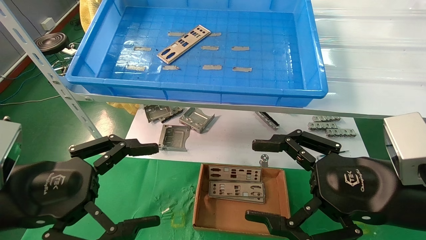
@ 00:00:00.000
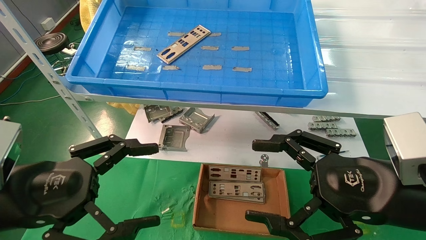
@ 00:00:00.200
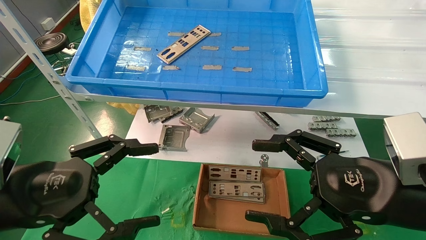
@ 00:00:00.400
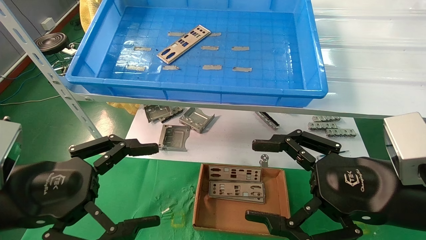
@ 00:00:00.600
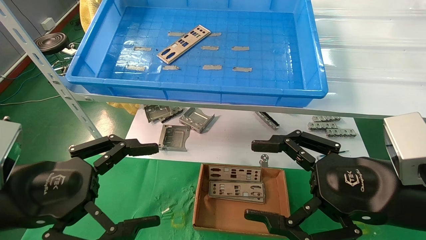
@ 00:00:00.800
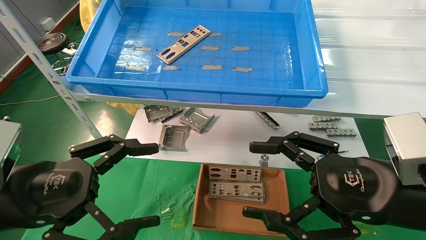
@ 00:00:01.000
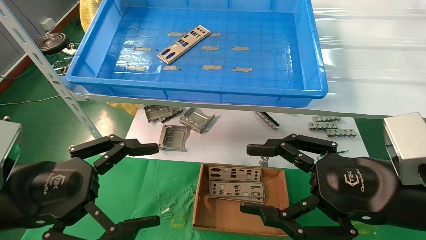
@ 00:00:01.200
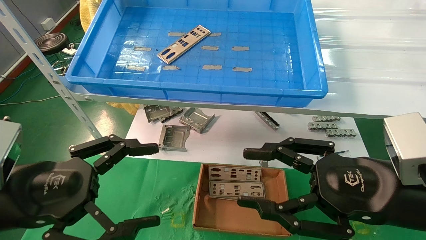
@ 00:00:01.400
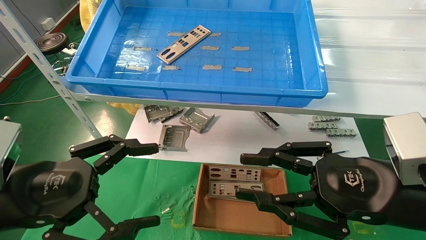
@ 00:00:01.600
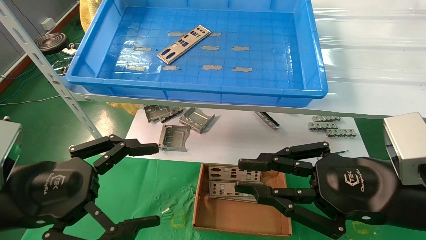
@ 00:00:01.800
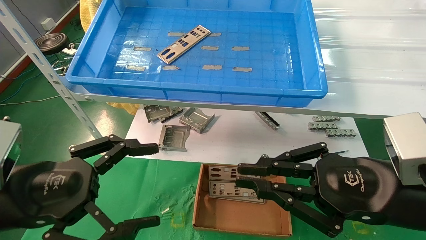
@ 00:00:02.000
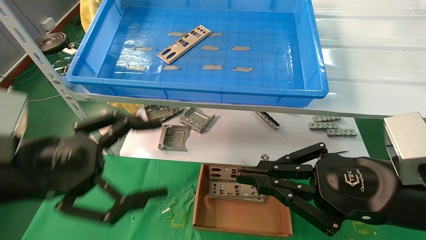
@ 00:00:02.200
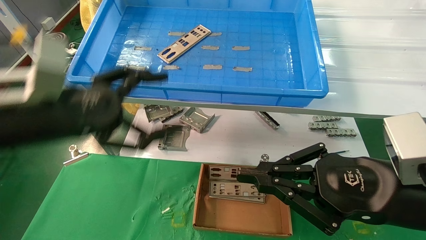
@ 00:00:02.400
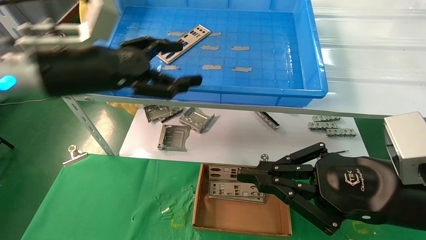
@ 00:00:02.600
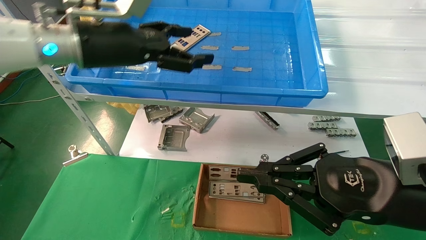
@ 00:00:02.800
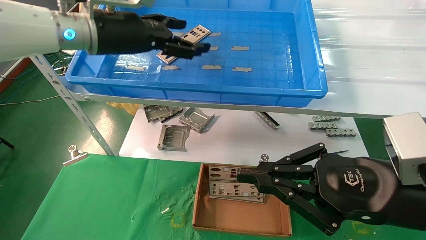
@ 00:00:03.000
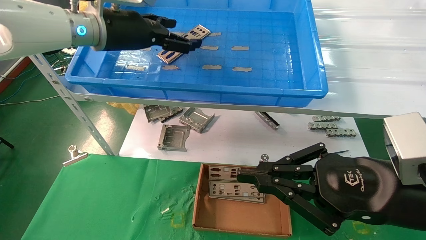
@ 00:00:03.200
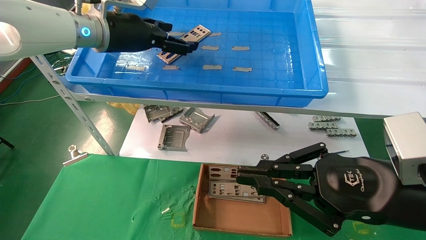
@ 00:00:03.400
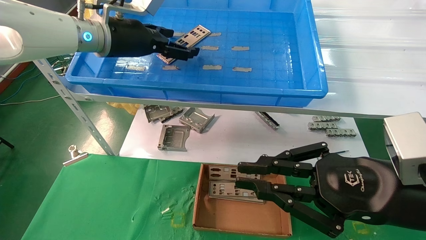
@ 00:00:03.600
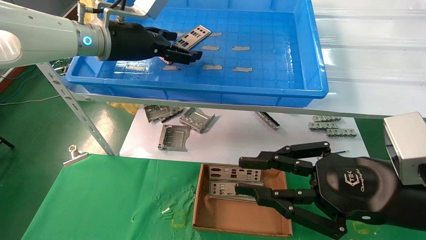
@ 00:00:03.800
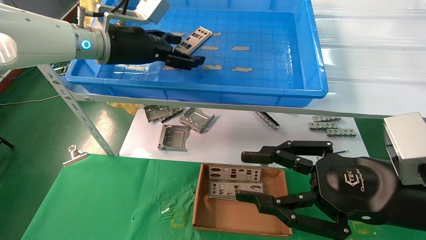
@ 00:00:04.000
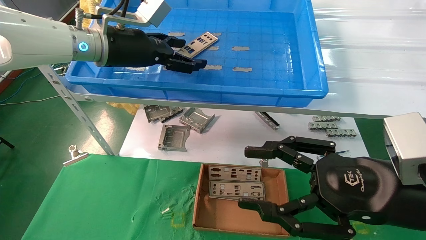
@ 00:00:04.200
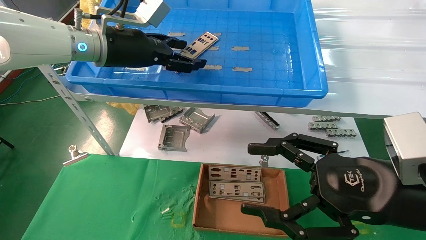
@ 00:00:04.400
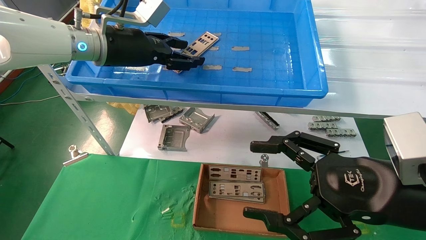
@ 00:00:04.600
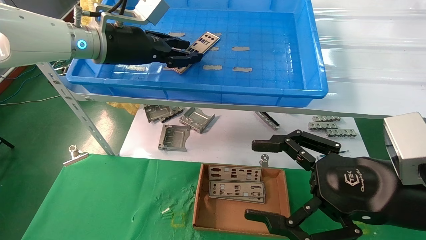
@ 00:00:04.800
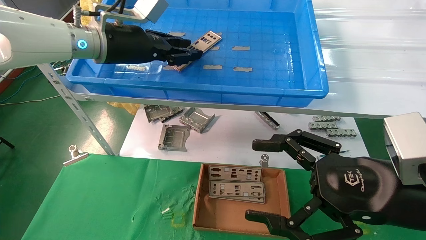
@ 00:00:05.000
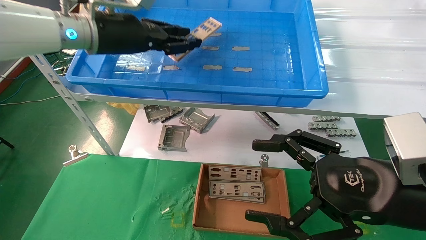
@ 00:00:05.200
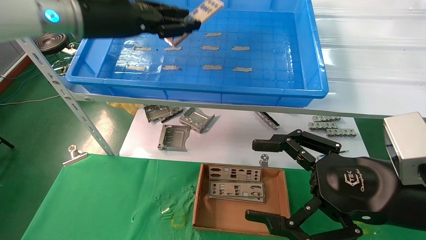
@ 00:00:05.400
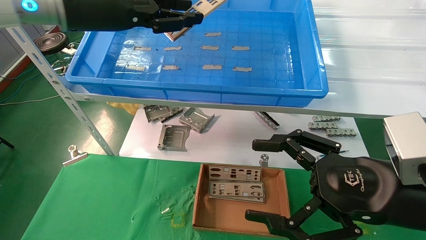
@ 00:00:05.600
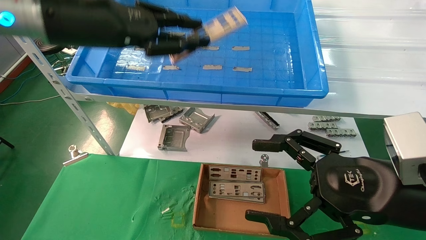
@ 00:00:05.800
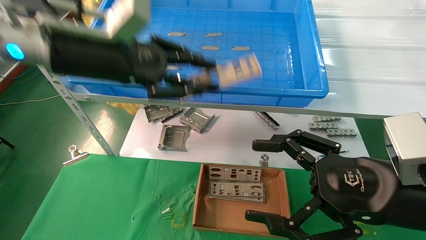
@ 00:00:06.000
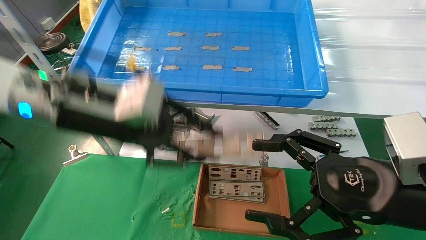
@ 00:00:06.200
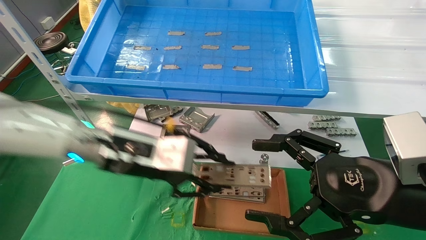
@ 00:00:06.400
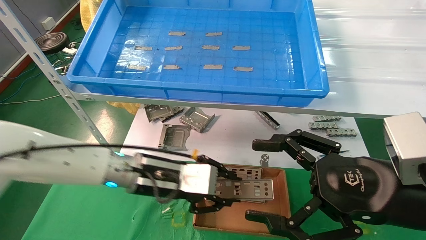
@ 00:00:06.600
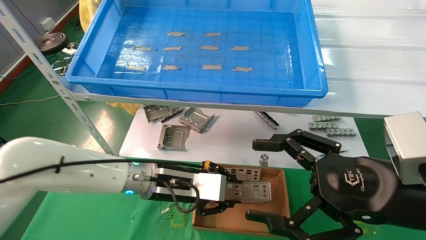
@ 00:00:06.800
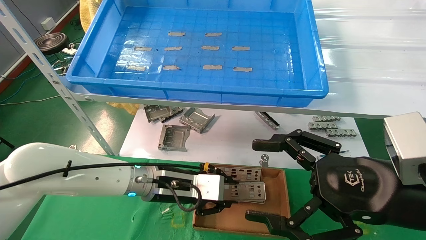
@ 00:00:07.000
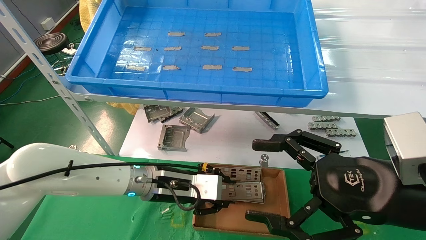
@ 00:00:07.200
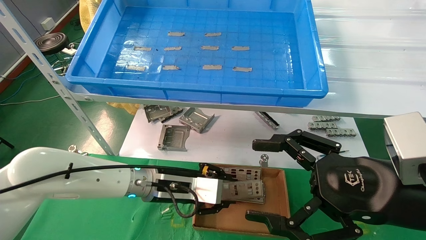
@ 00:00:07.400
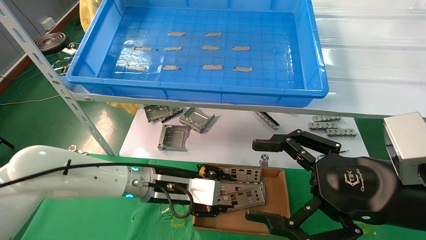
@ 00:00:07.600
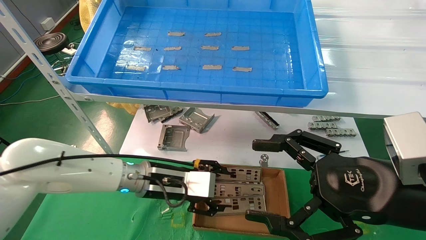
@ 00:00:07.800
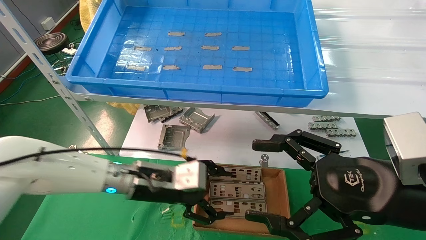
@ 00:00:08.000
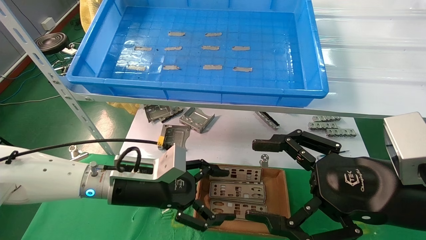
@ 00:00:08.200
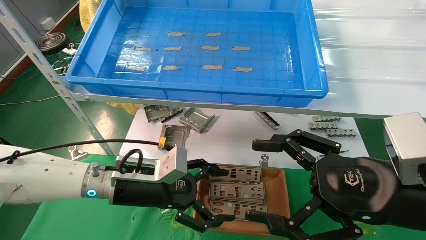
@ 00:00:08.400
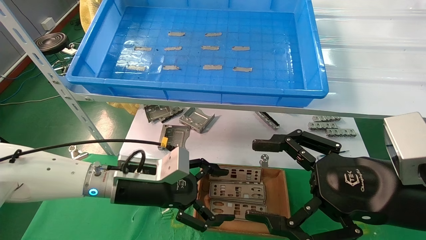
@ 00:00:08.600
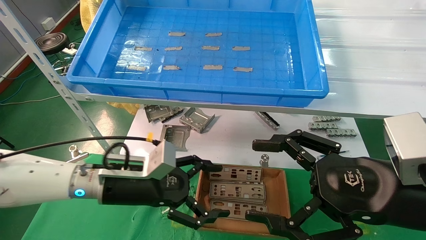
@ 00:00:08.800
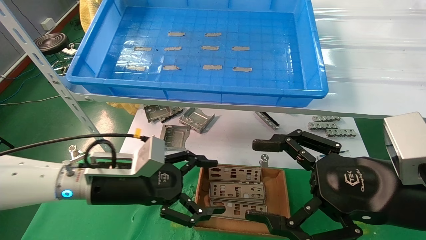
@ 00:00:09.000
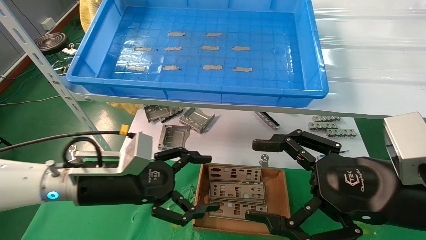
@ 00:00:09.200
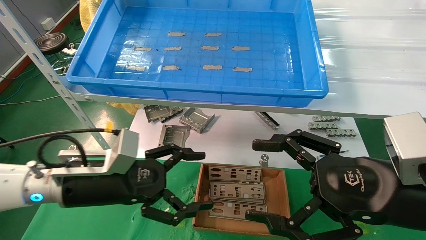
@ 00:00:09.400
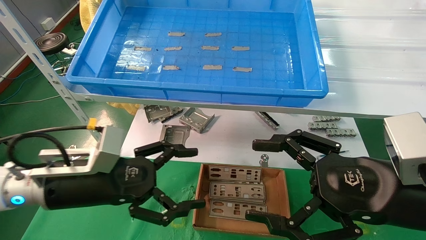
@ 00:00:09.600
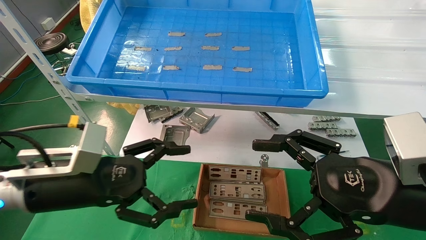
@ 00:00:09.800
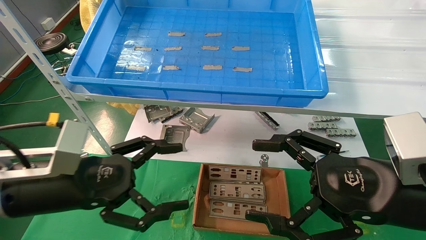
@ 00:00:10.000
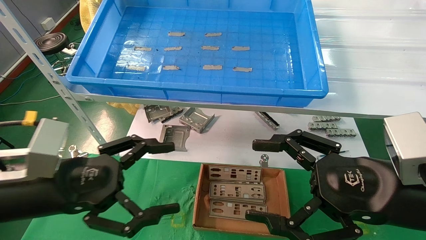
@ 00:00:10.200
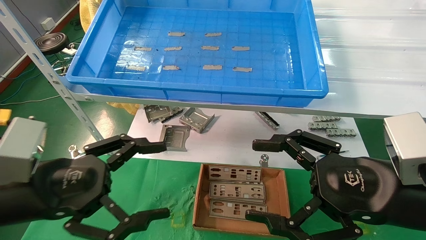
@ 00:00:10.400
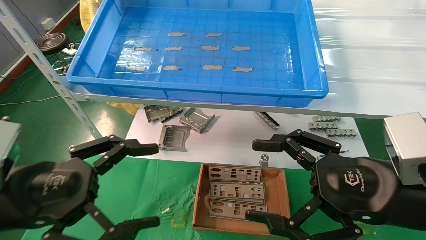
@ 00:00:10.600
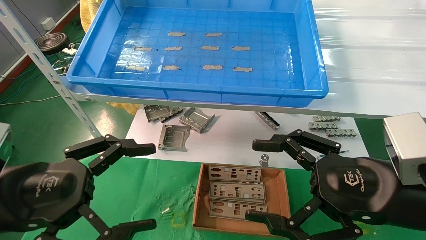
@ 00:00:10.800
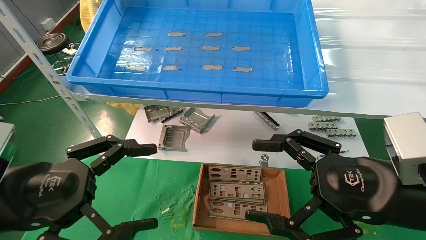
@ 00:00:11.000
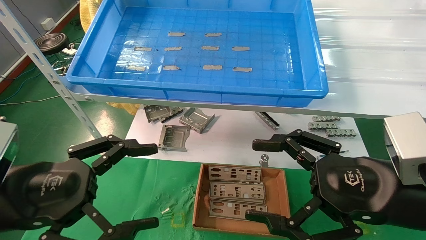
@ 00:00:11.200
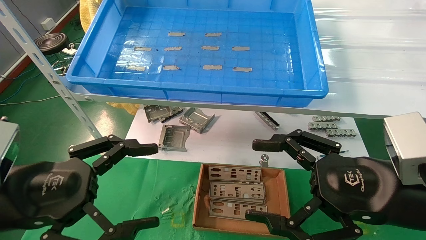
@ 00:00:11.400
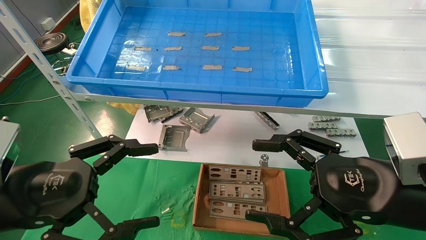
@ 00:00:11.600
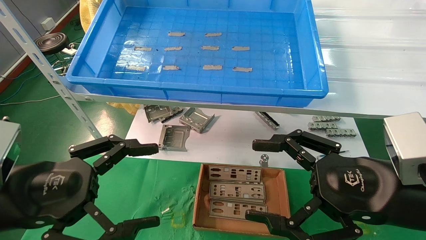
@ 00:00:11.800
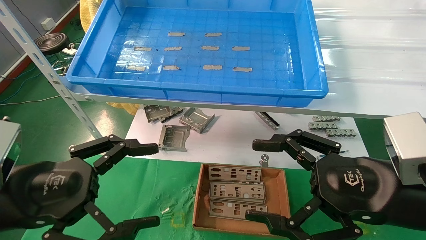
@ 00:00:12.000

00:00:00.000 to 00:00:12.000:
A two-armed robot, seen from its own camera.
Task of the whole recording: pick up the parts on the tray and put them in the cardboard box.
Step, 00:00:02.600 to 00:00:05.000: Pick up the IO bracket from the container box.
Step, 00:00:05.200 to 00:00:07.600: Place the IO bracket into the ingredient slot.
00:00:00.000 to 00:00:01.600: The right gripper closes up.
00:00:01.600 to 00:00:03.000: The right gripper closes its fingers. The left gripper heads forward, upward and to the right, covering some 30 cm.
00:00:03.000 to 00:00:04.400: The right gripper opens its fingers.
00:00:04.400 to 00:00:06.000: The left gripper is displaced backward by approximately 10 cm, and closes.
00:00:06.000 to 00:00:07.600: The left gripper moves downward, roughly 25 cm.
00:00:07.600 to 00:00:09.000: The left gripper goes roughly 10 cm to the left and backward, and opens its fingers.
00:00:09.000 to 00:00:10.400: The left gripper moves backward, to the left and upward, roughly 15 cm.
00:00:10.400 to 00:00:12.000: The grippers move only a little.

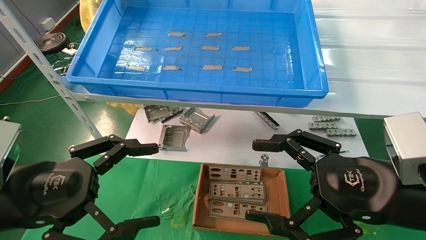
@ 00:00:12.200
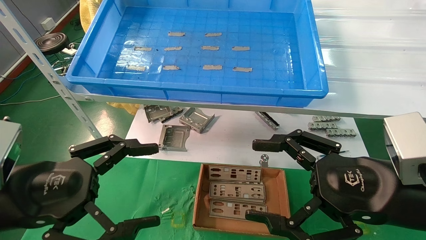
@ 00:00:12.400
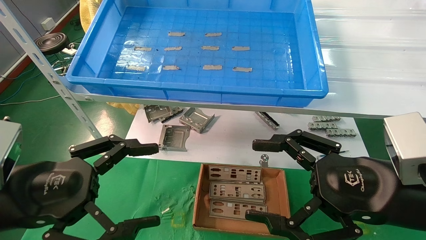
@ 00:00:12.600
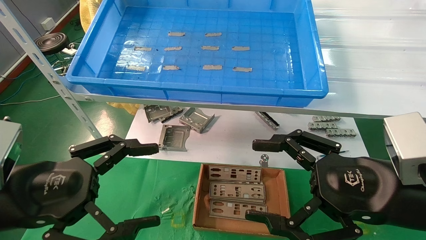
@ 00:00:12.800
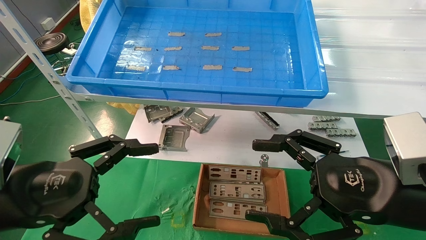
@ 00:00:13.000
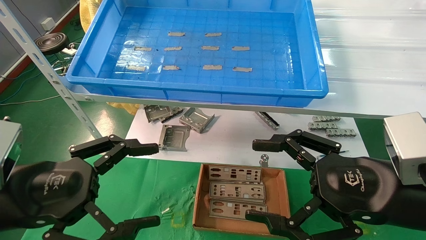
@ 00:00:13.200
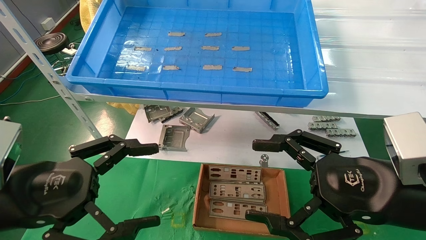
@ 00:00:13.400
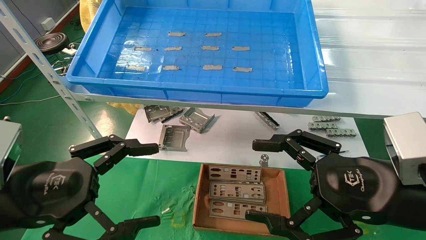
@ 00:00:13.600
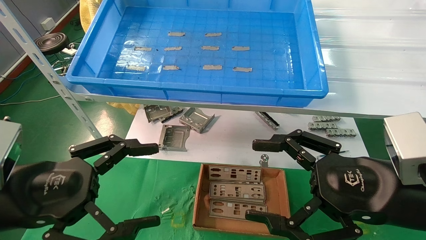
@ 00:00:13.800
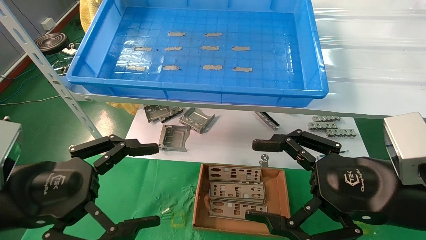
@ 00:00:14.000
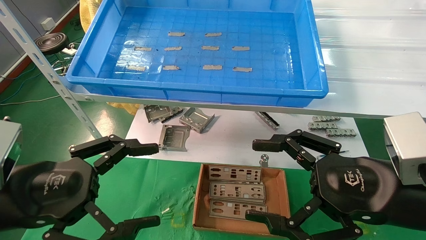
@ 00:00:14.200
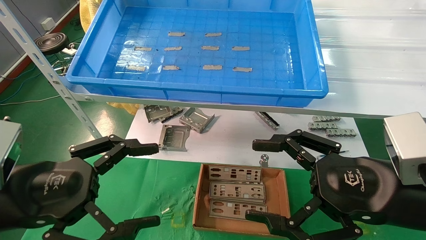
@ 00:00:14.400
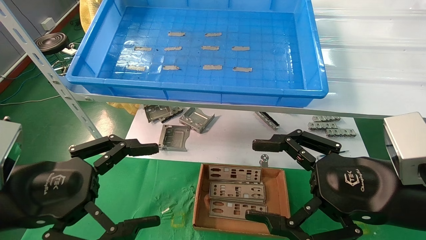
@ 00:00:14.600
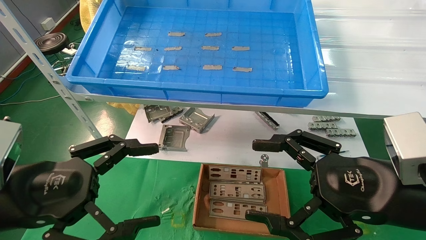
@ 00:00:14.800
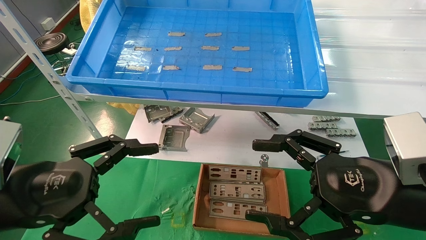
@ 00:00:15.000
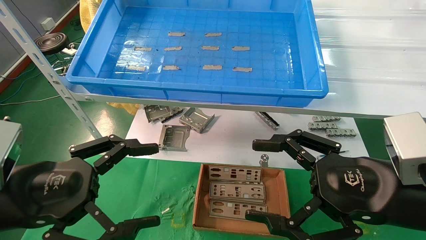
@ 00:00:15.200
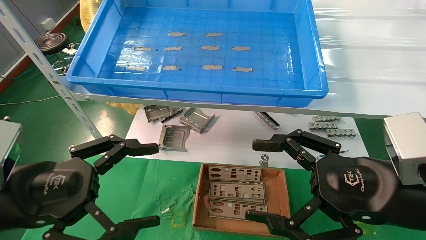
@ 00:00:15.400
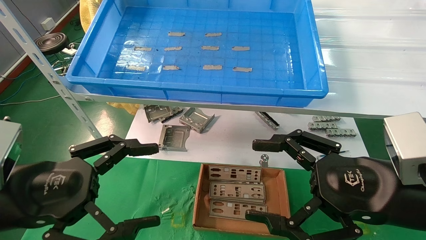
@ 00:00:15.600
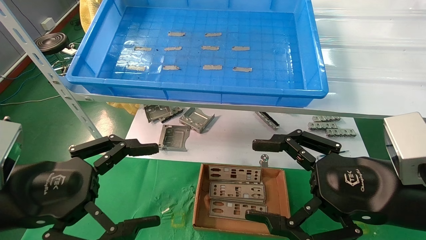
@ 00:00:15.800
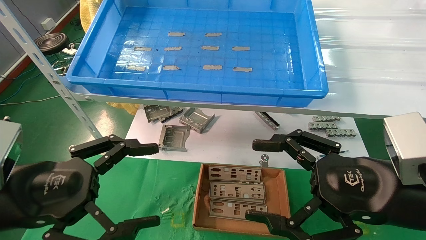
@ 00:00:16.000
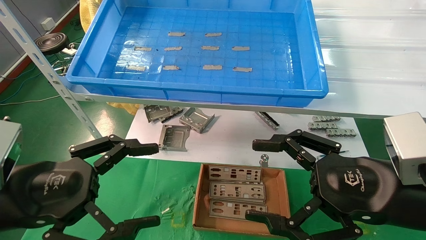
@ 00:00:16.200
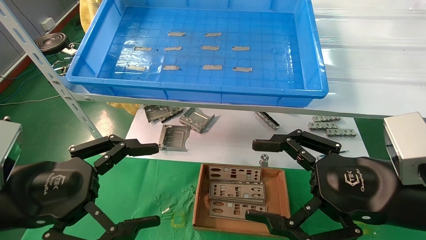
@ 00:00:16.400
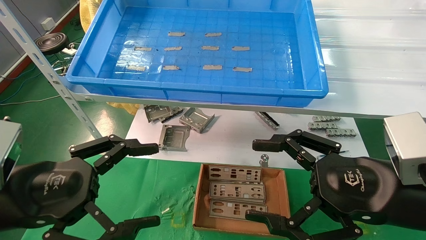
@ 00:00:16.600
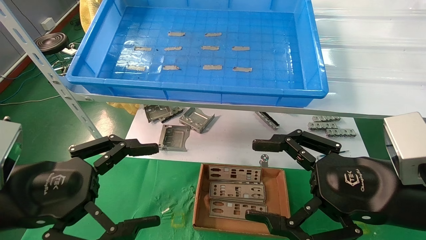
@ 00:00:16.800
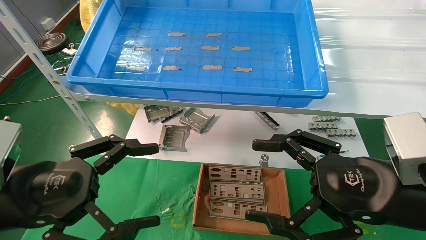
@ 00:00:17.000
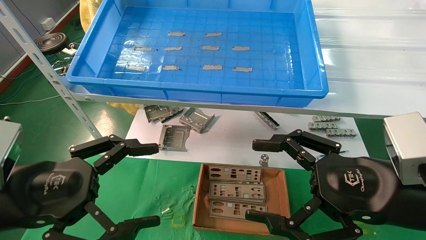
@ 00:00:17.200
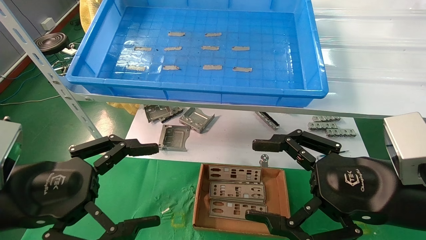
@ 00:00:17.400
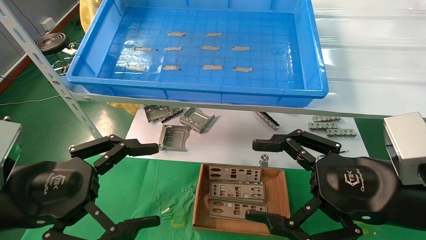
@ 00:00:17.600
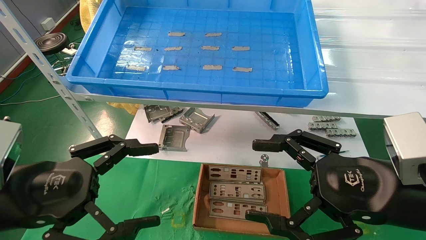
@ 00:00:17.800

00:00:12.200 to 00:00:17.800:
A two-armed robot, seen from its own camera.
Task of the whole recording: pick up the parts on the tray and put them in the cardboard box.
00:00:12.200 to 00:00:17.800: The two grippers keep their place.
